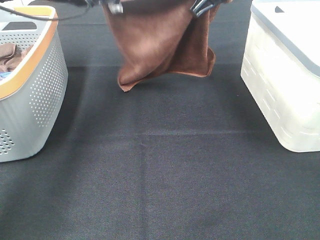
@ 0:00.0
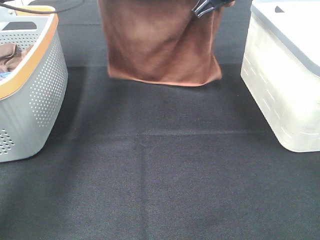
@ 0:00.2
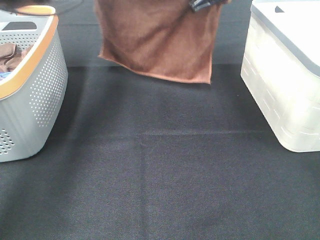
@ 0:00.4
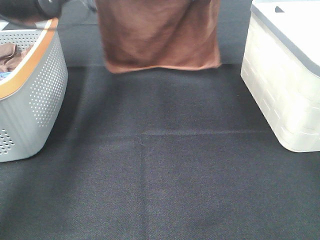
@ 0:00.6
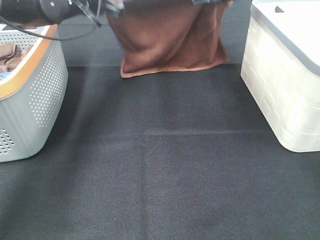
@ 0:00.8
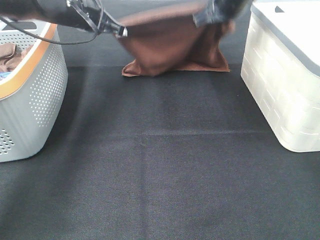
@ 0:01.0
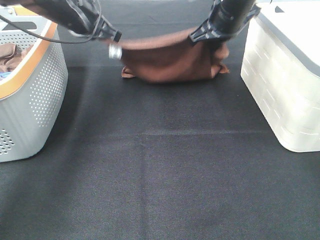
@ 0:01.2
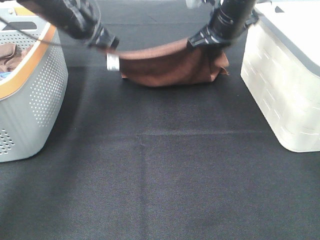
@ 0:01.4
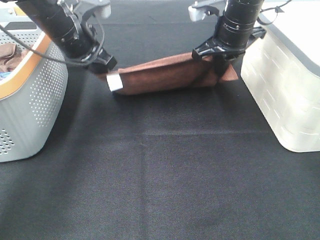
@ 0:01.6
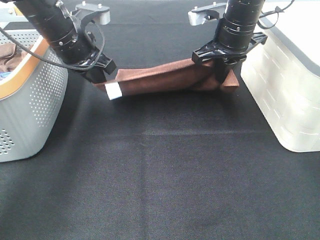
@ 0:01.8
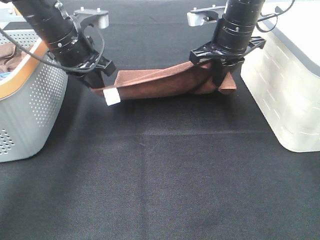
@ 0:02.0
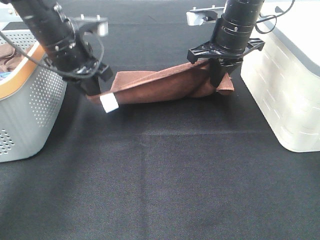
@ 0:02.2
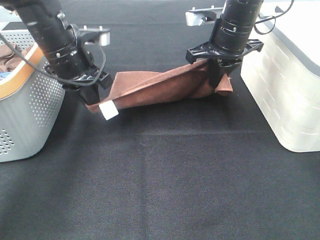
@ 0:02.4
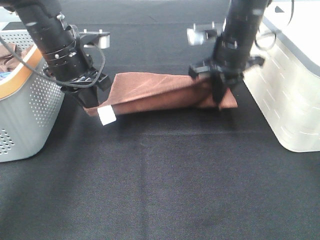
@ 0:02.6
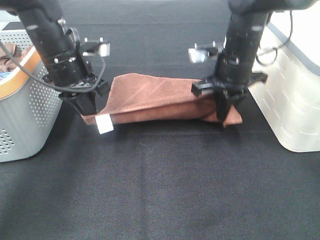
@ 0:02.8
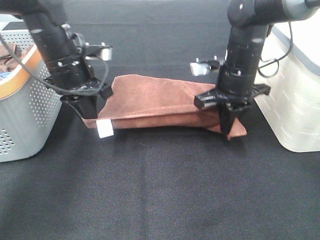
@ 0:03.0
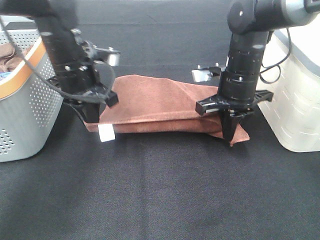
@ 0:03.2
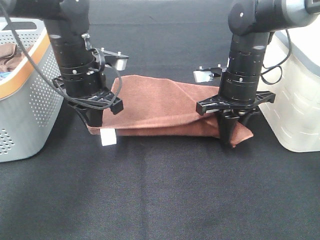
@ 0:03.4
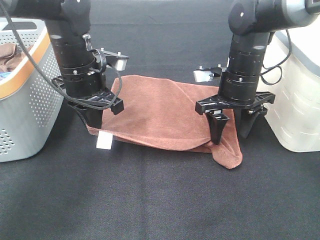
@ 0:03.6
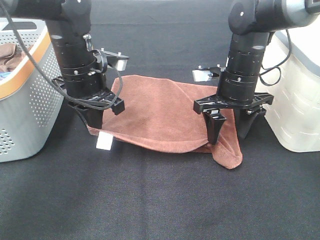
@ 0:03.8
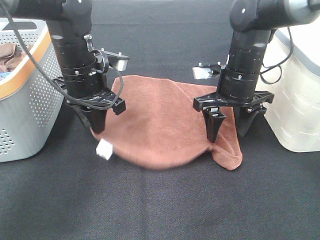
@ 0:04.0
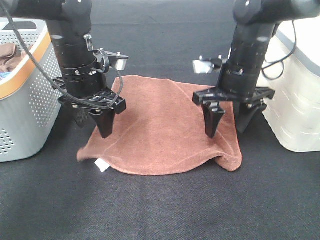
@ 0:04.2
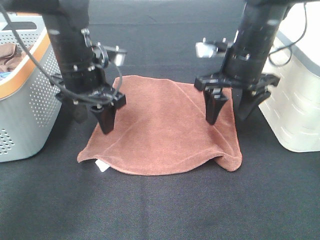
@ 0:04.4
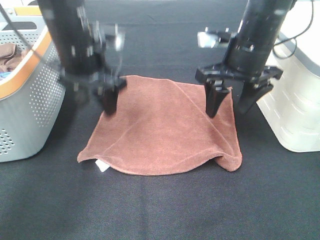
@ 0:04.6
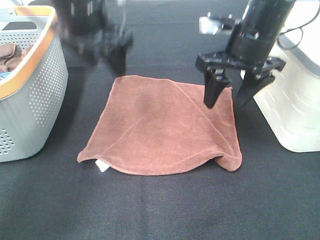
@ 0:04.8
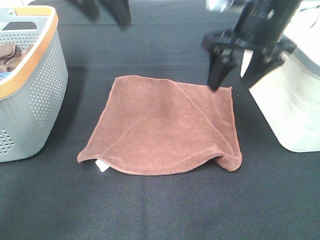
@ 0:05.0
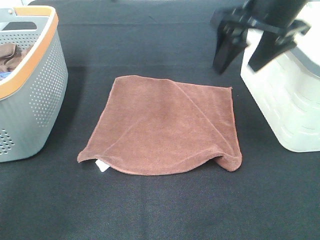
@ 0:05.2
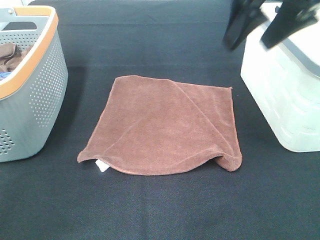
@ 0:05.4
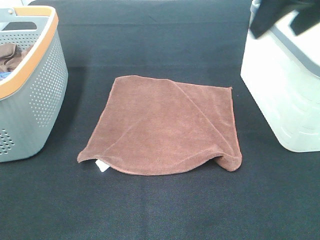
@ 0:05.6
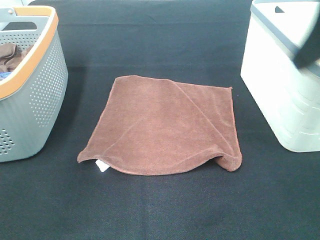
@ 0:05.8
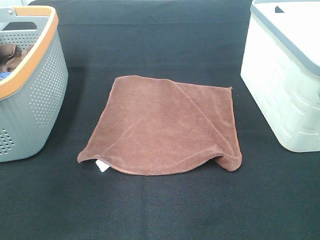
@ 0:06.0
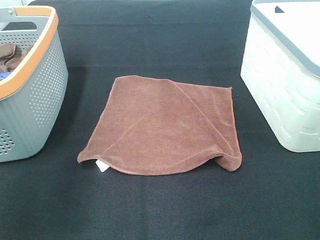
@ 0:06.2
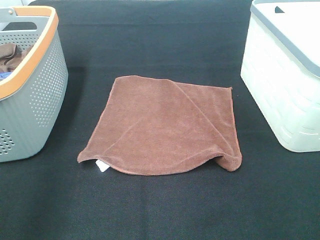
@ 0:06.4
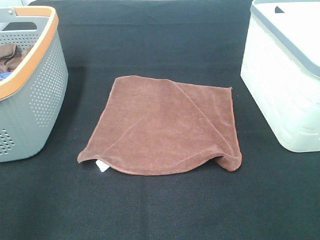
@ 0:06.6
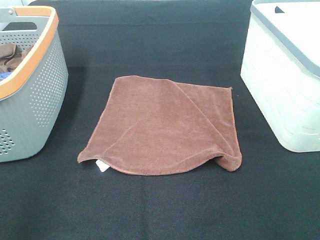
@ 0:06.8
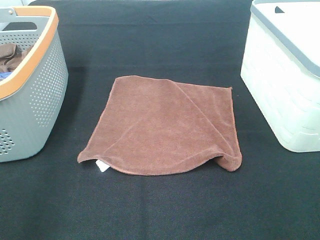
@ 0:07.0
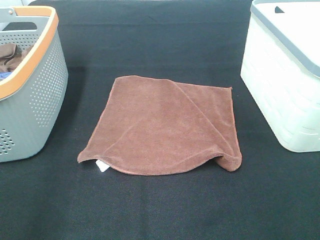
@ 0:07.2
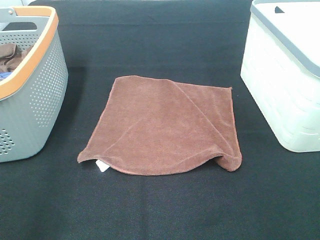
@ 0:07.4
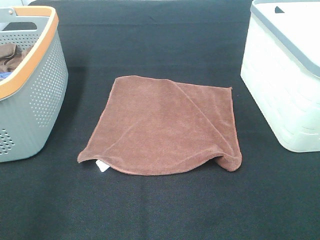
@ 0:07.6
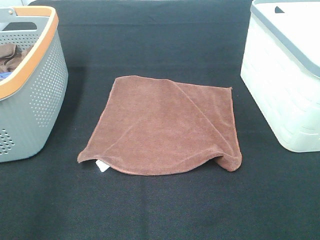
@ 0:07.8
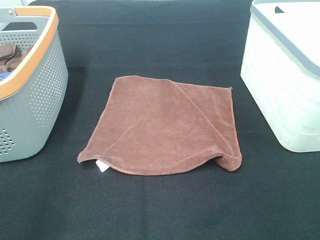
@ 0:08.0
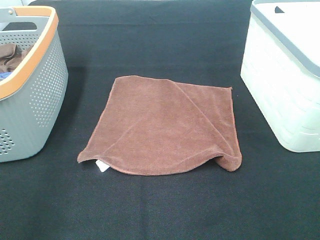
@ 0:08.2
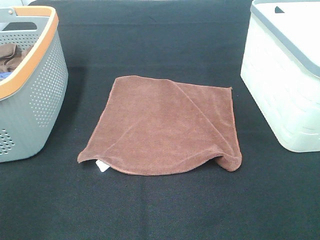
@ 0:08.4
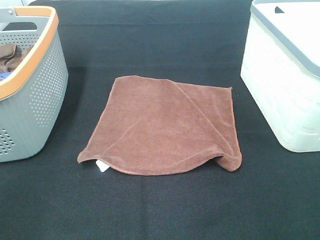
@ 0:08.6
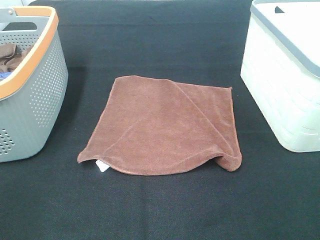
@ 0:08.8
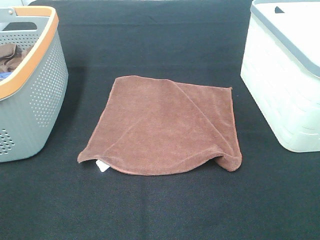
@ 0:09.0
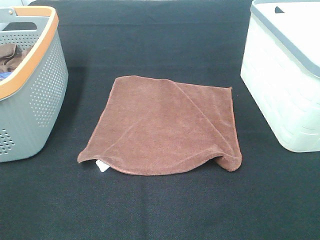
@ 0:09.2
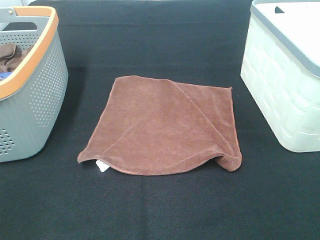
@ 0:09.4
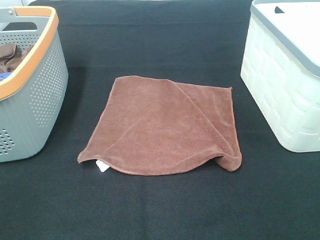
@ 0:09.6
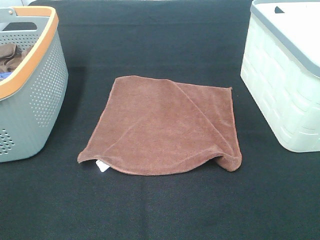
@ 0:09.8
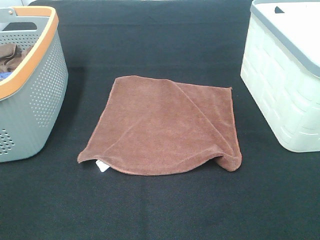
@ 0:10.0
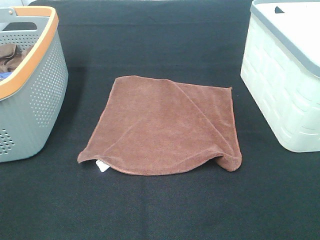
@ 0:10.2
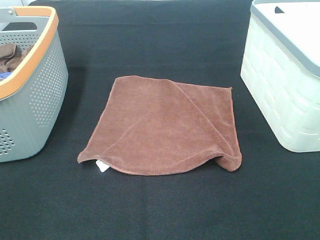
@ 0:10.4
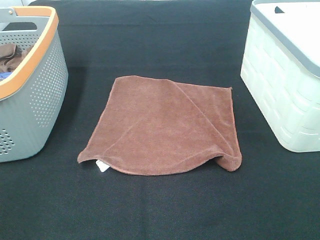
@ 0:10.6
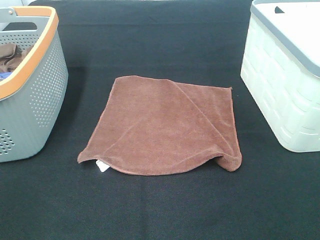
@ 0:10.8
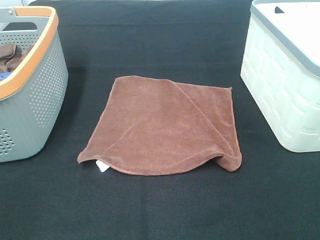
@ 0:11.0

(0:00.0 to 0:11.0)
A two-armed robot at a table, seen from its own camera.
Task of the whole recording: Remove the towel and place it.
0:00.0 - 0:01.6: The right gripper shifts approximately 10 cm downward, while the left gripper moves downward and backward, roughly 10 cm.
0:01.6 - 0:03.2: The right gripper heads downward and backward, covering about 10 cm. The left gripper shifts by some 5 cm.
0:03.2 - 0:04.8: Both grippers travel together upward, about 10 cm. The right gripper opens. The left gripper opens.
0:04.8 - 0:06.2: The left gripper shifts roughly 25 cm backward and to the left, while the right gripper shifts roughly 30 cm backward and to the right.
0:06.2 - 0:07.8: The left gripper goes about 10 cm backward.

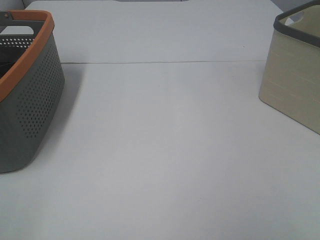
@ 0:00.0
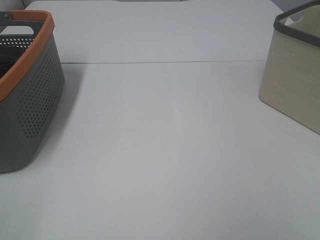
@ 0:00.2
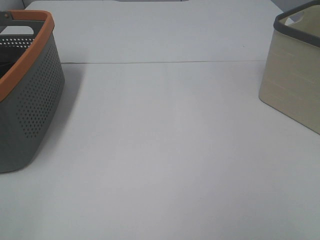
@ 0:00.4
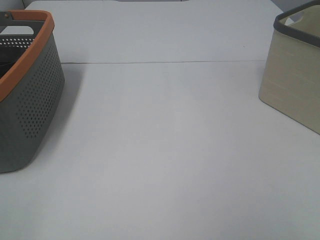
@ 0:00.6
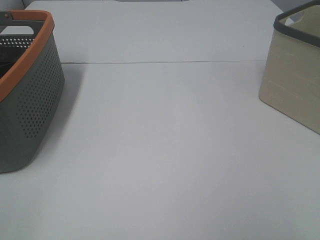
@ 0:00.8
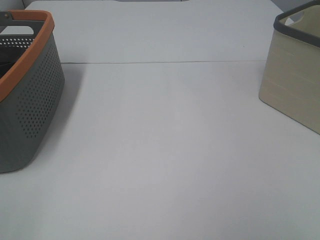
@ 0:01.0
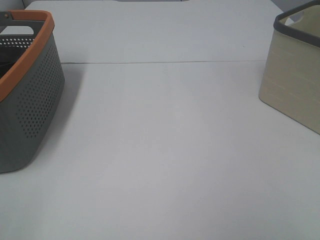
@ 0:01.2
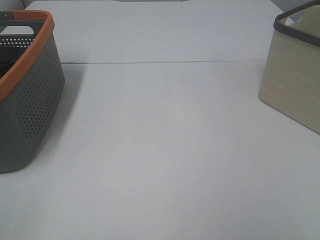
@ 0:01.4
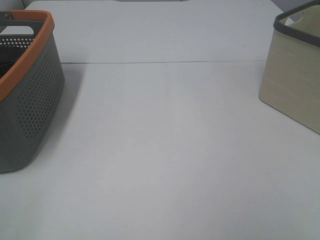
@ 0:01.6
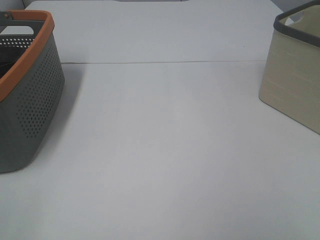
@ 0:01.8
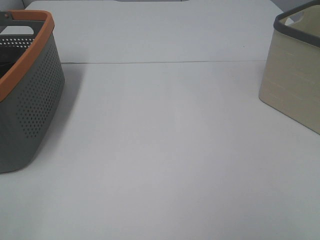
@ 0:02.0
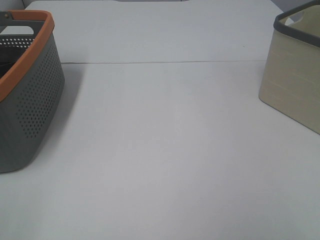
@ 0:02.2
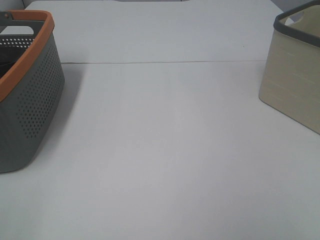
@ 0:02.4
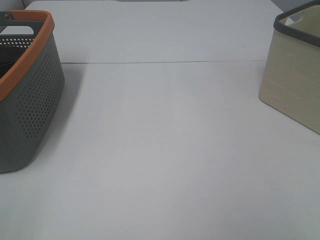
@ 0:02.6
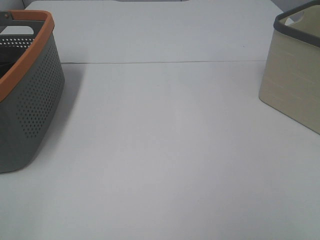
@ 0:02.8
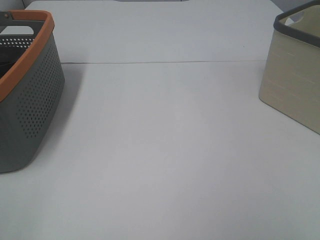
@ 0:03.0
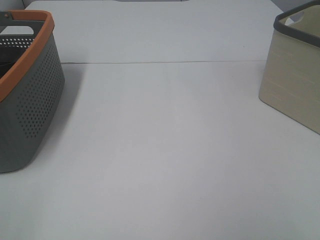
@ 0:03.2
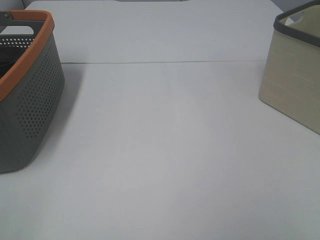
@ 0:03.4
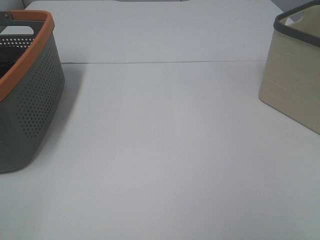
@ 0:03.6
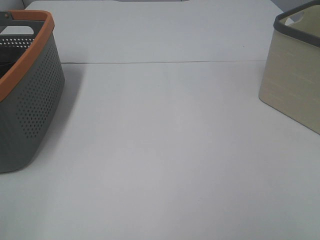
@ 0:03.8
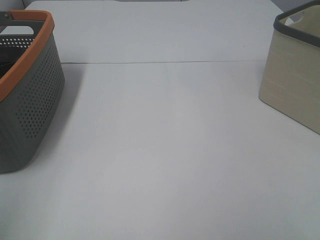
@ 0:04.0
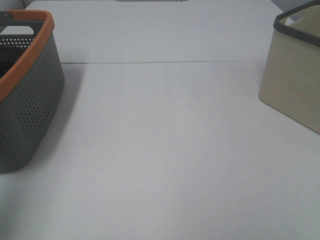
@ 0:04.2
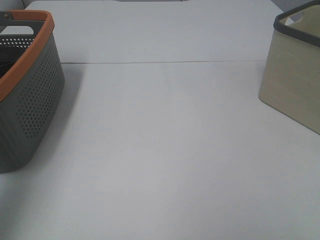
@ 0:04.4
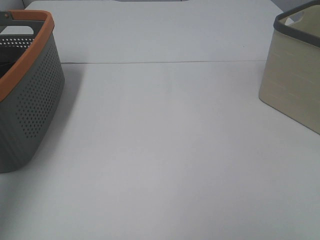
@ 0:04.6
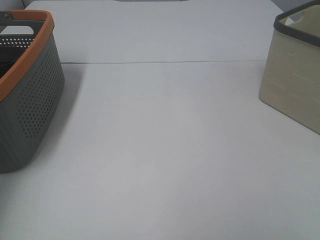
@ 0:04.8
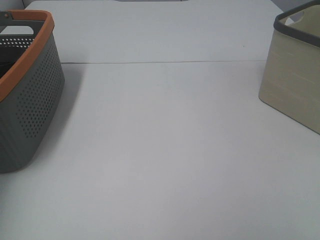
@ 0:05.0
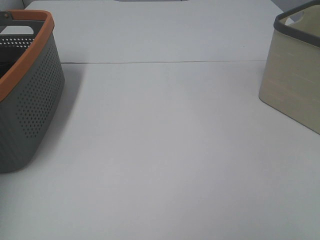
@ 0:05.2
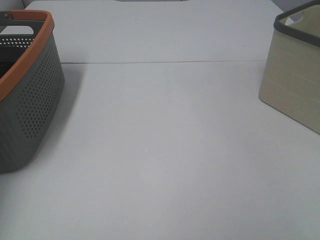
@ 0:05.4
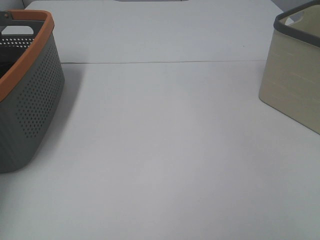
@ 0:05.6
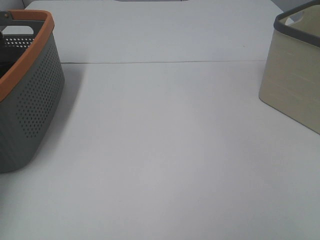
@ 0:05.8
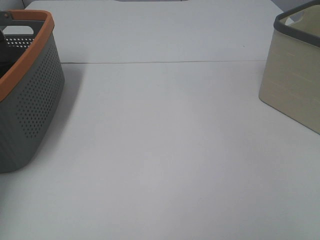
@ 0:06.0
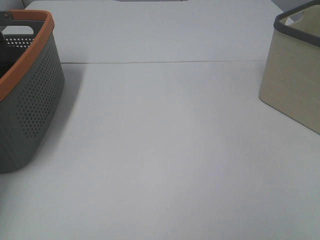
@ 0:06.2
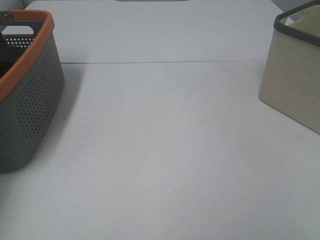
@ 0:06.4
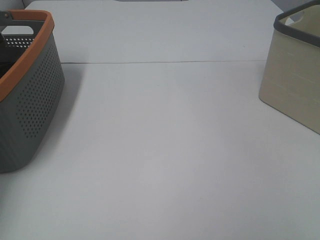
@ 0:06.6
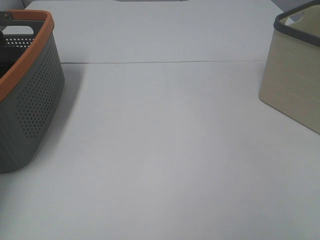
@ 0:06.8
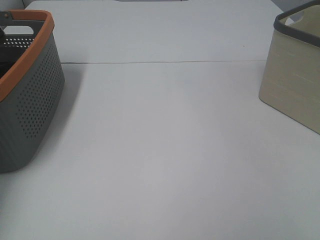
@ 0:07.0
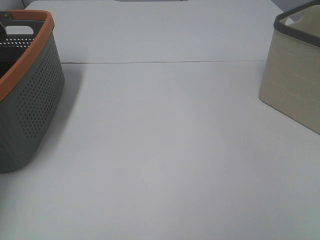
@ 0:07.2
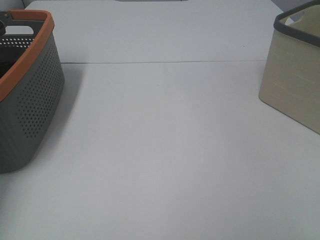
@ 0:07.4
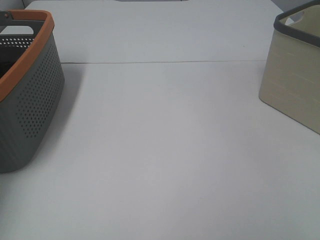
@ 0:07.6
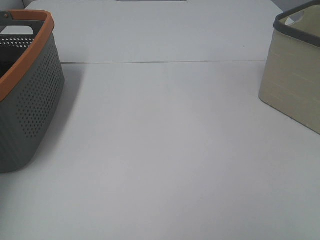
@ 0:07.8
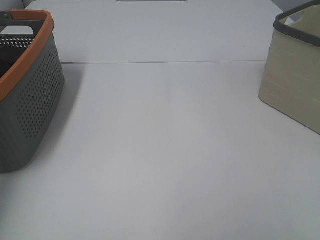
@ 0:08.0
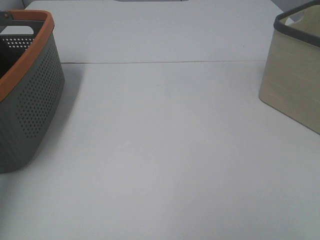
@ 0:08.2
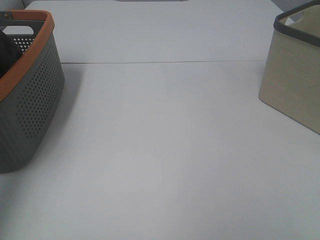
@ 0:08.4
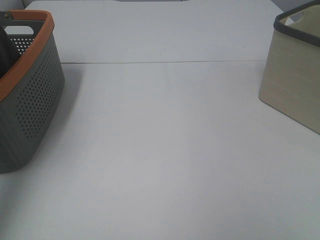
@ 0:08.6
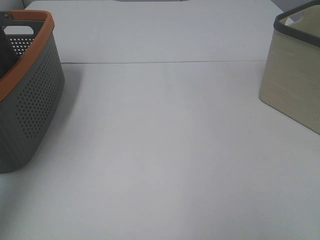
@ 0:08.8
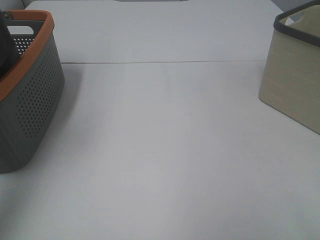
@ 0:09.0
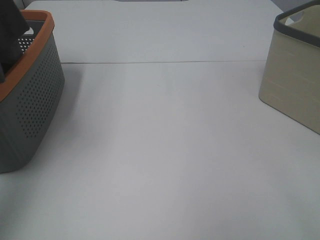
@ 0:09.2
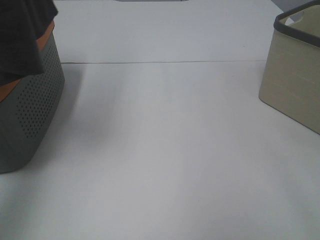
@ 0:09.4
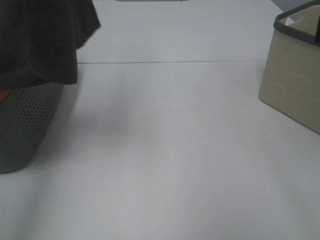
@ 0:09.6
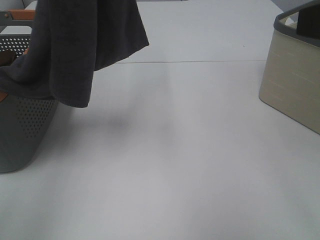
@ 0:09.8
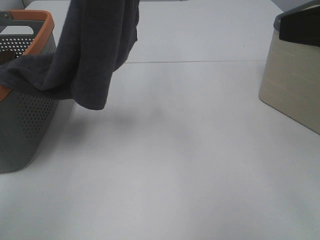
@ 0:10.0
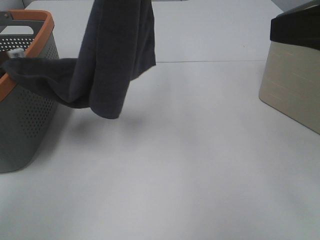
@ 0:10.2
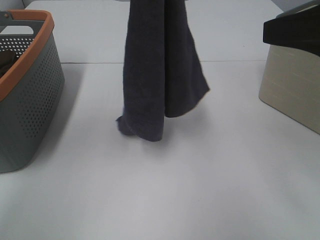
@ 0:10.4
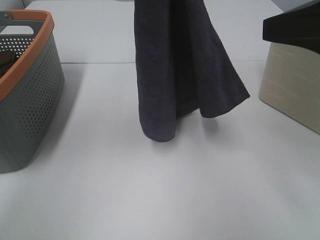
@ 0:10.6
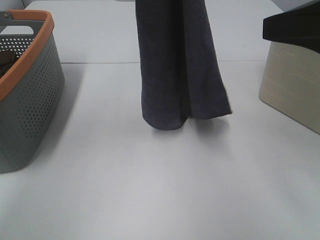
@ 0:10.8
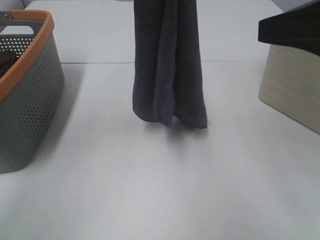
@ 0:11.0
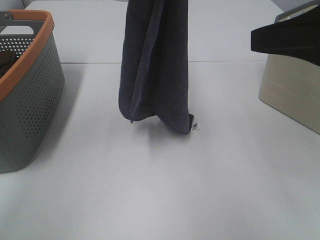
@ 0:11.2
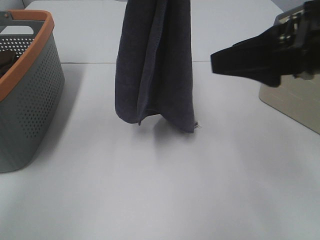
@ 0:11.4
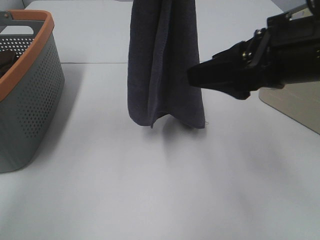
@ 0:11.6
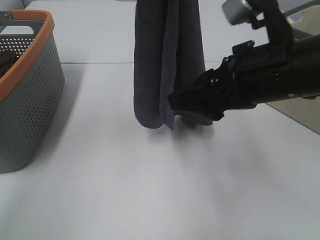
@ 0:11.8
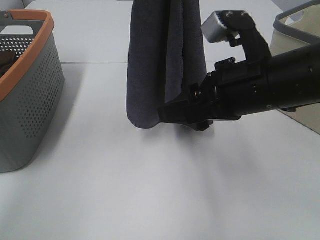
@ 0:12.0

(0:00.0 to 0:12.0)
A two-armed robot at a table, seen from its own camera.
Task of the whole recording: Remove the towel and place it.
Step, 0:08.6 - 0:11.8: Right hand: grab a corner of the grey towel and straighten it.
0:00.0 - 0:03.0: Neither gripper changes place.
0:03.0 - 0:04.4: The left gripper moves forward and upward, some 25 cm.
0:04.4 - 0:06.0: The left gripper goes some 35 cm downward and forward.
0:07.6 - 0:09.0: The left gripper travels upward and backward by some 35 cm.
0:09.0 - 0:10.4: The right gripper travels forward by some 15 cm. The left gripper goes roughly 20 cm to the right.
0:10.4 - 0:12.0: The right gripper moves to the left and downward, about 15 cm.
